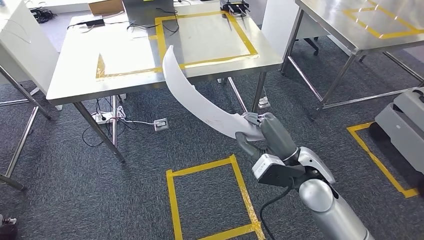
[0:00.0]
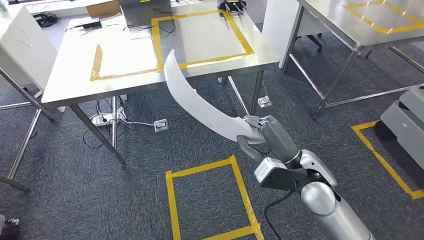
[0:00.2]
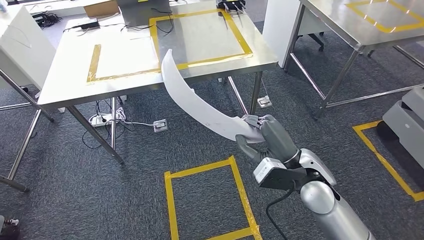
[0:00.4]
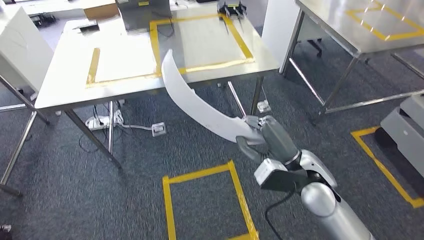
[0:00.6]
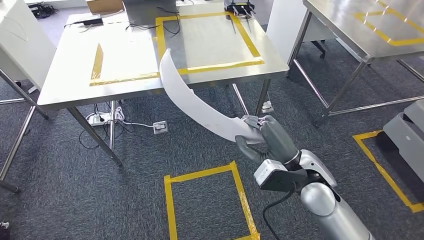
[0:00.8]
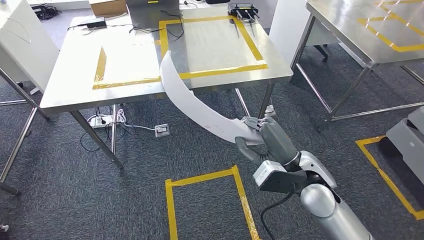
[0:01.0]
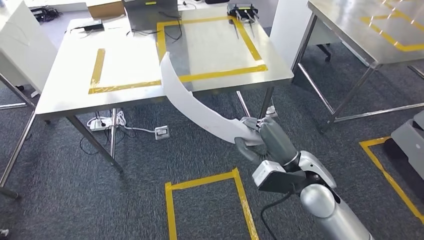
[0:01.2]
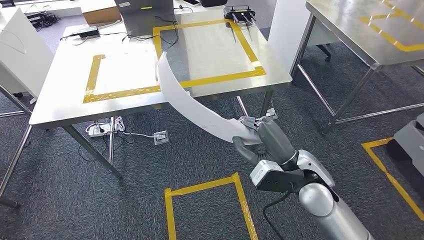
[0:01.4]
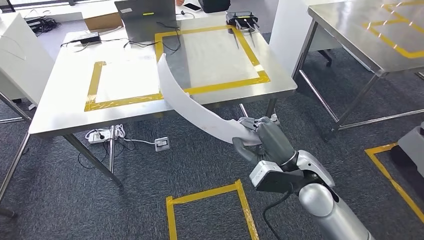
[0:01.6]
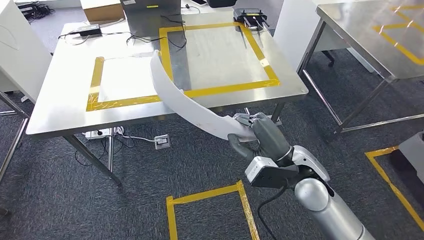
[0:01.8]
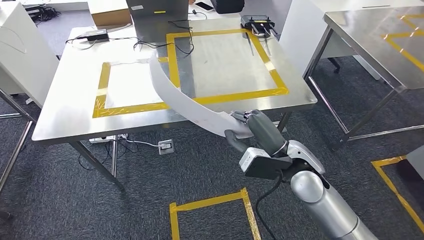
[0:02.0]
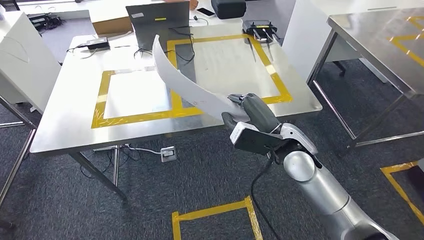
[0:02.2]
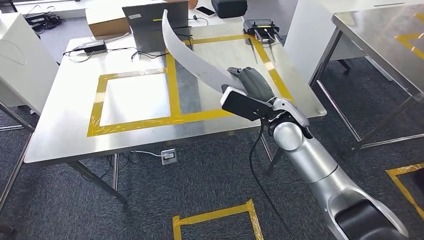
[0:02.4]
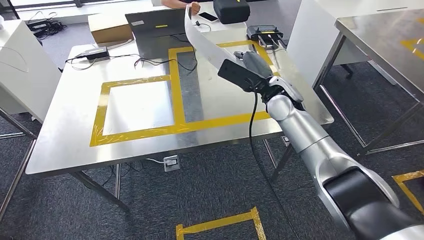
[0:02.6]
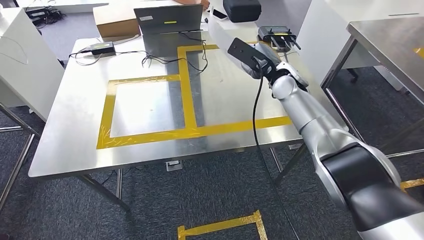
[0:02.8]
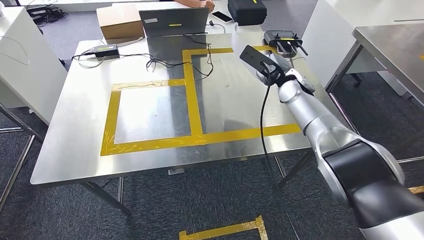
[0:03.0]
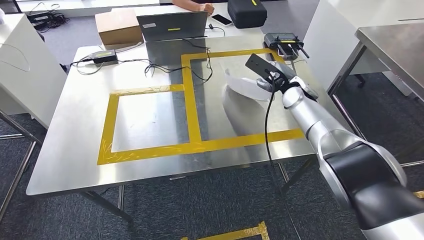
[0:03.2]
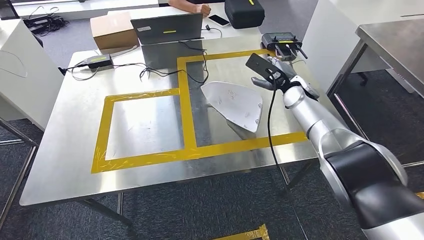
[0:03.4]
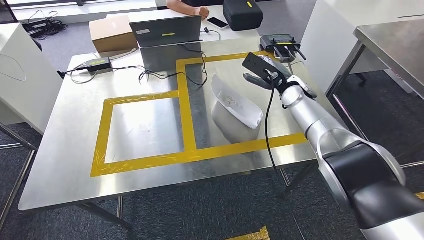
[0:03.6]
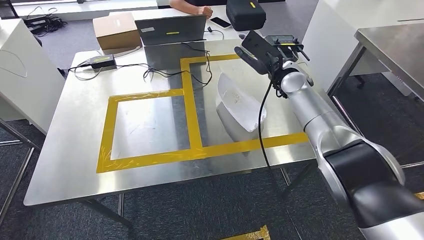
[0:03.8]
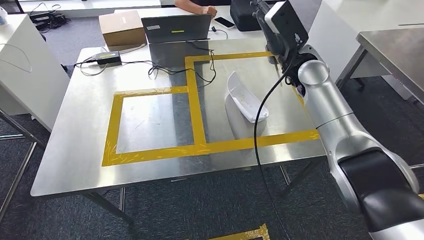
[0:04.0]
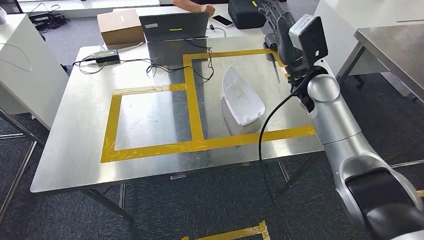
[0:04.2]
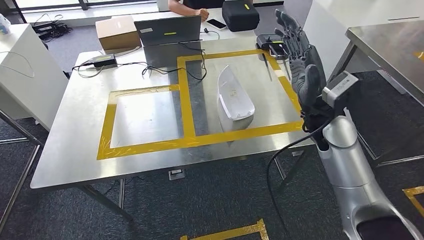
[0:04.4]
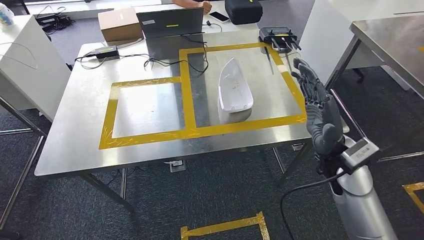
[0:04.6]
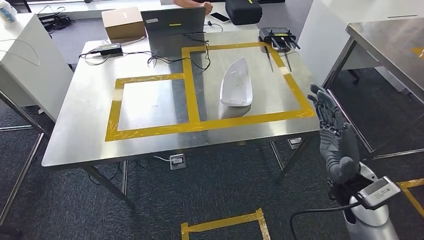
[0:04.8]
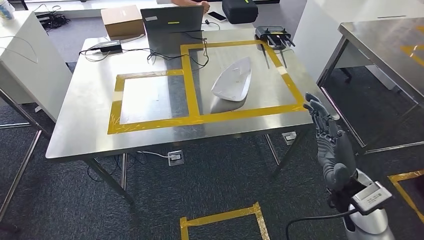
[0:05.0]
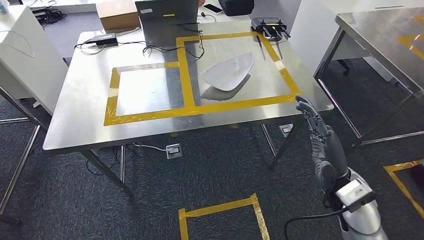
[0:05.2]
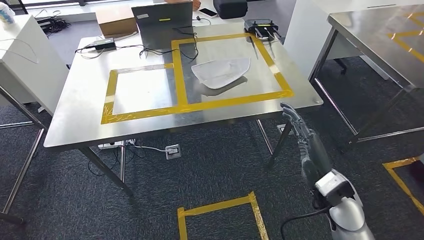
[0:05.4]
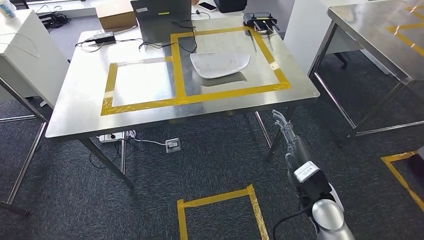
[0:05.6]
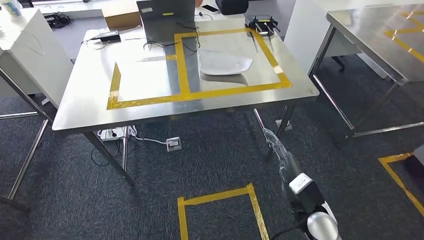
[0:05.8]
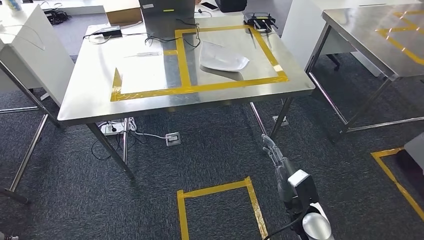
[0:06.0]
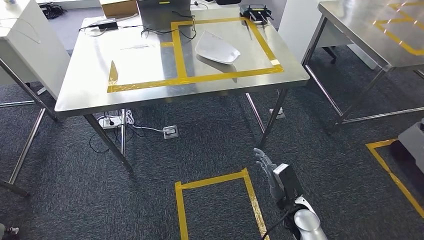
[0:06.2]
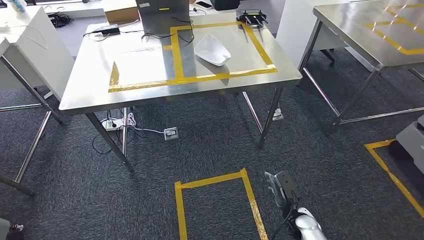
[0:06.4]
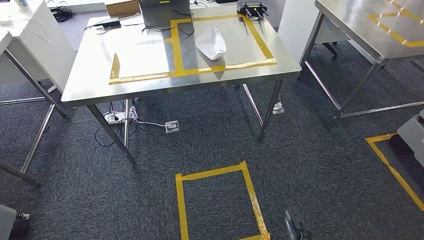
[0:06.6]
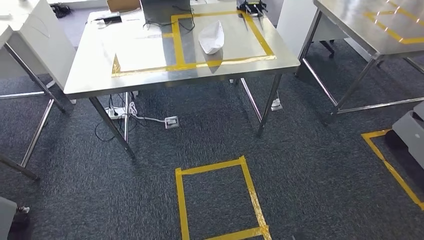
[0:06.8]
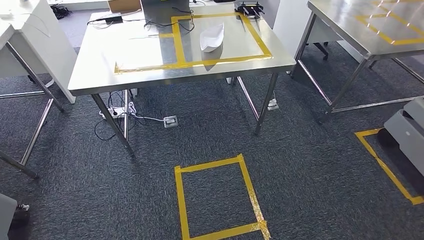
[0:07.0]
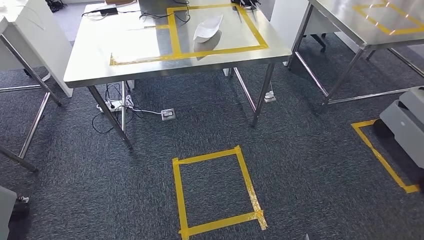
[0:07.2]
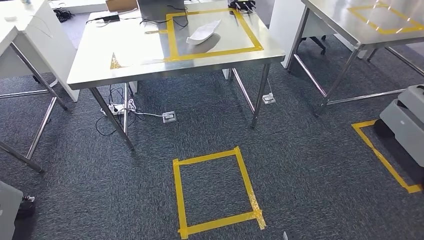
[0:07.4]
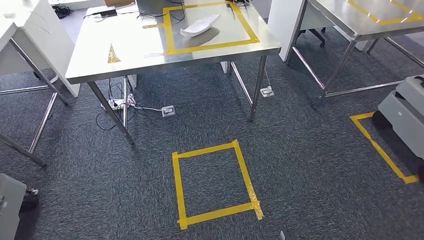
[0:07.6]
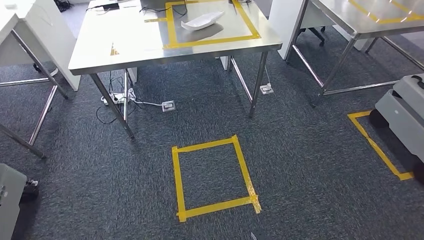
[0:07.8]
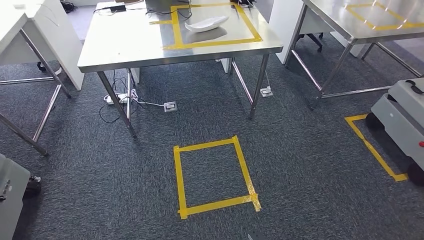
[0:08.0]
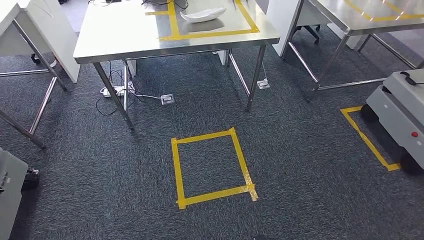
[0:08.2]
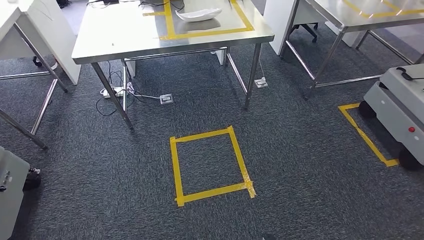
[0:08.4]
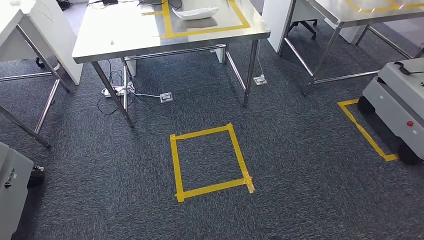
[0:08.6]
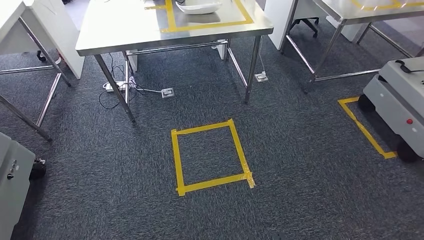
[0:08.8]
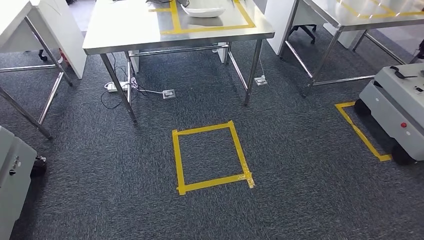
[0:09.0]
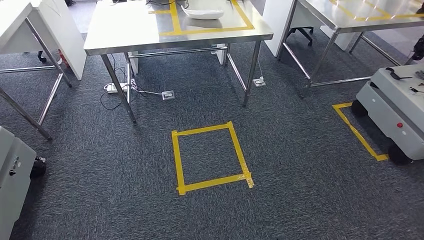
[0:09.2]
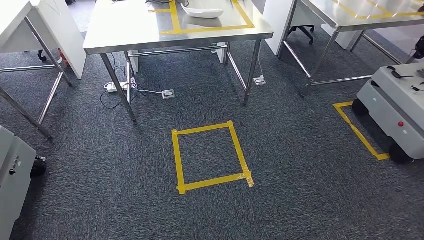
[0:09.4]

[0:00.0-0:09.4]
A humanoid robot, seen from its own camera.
Step, 0:00.2 to 0:04.8: Insert the small component into the corresponding slot on the workbench.
Step, 0:05.0 to 0:09.4: Move to the initial position of the workbench.
